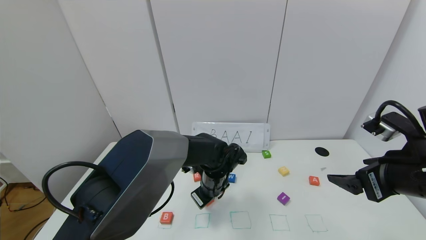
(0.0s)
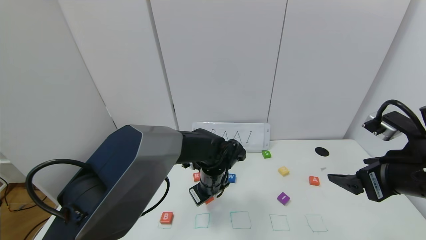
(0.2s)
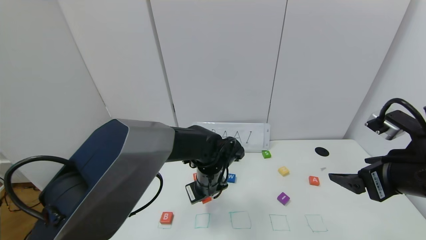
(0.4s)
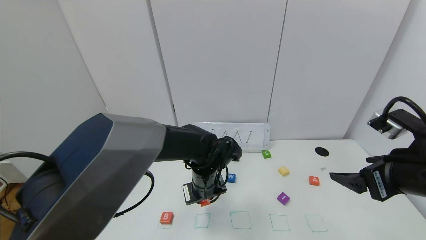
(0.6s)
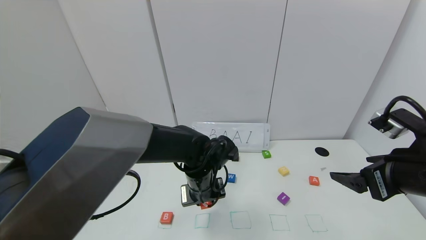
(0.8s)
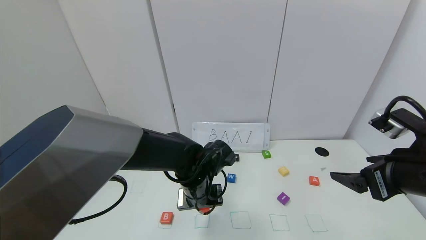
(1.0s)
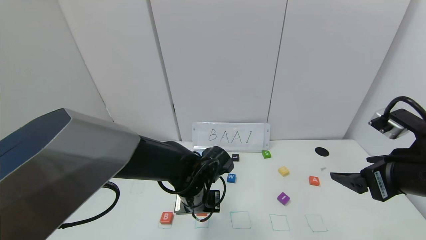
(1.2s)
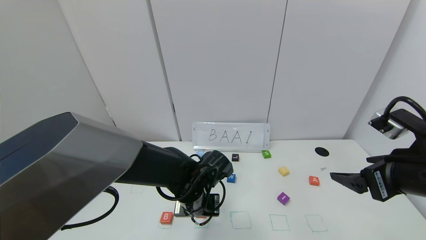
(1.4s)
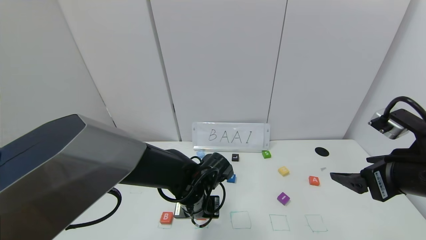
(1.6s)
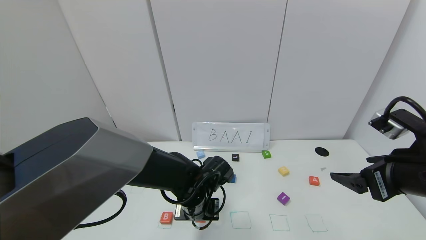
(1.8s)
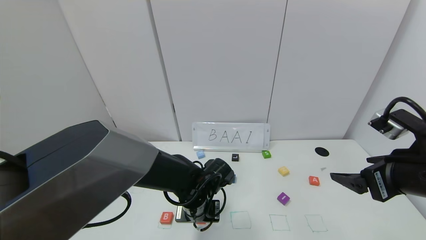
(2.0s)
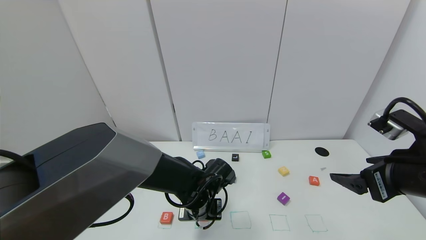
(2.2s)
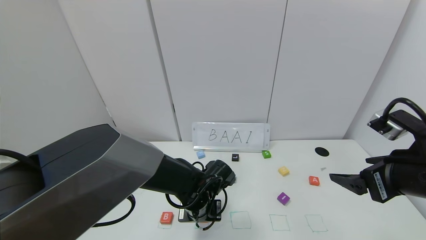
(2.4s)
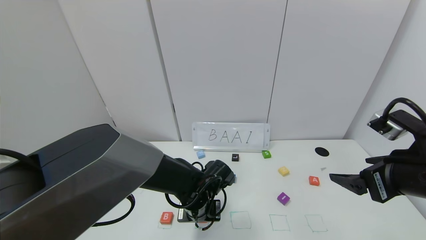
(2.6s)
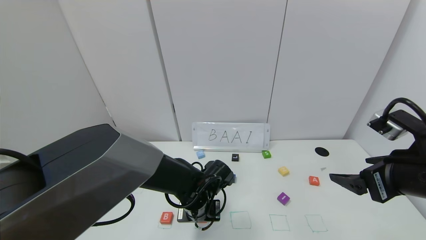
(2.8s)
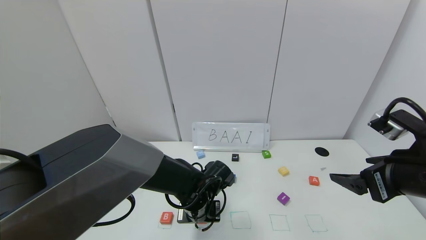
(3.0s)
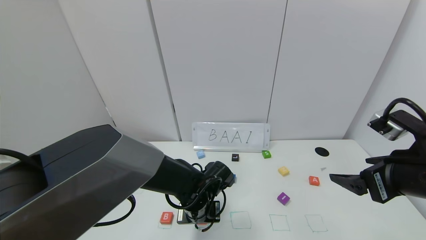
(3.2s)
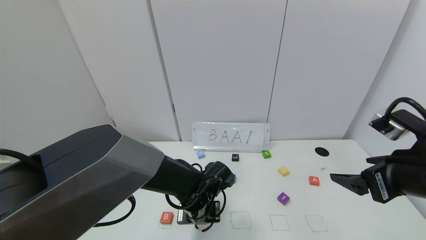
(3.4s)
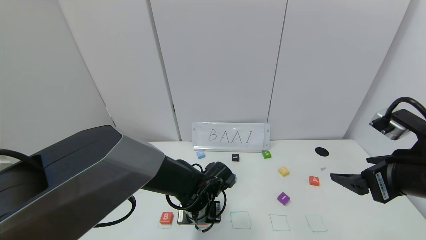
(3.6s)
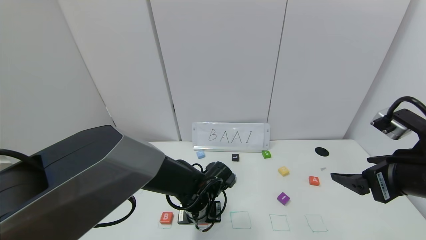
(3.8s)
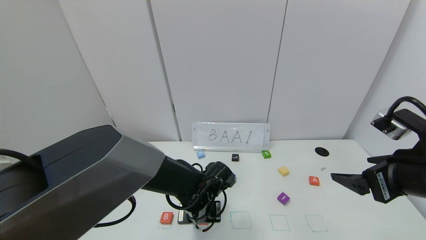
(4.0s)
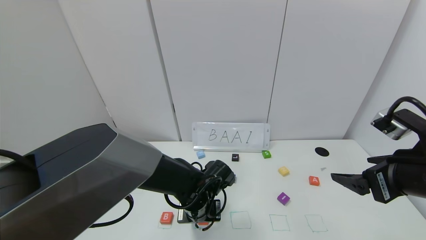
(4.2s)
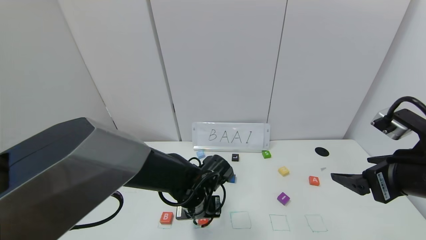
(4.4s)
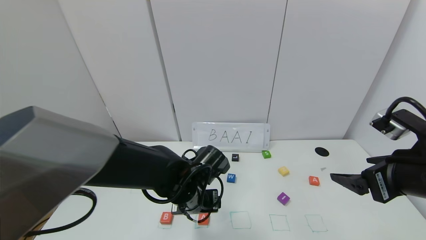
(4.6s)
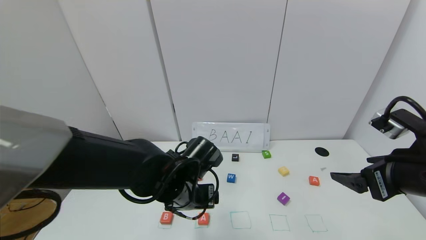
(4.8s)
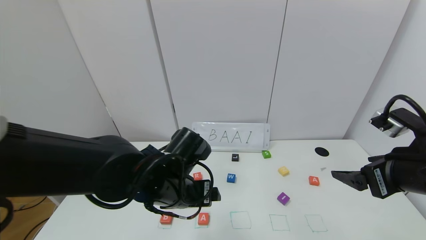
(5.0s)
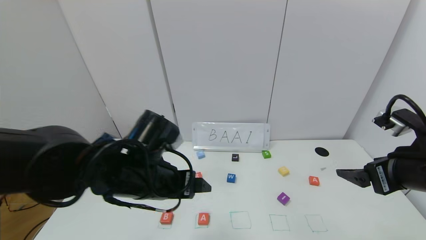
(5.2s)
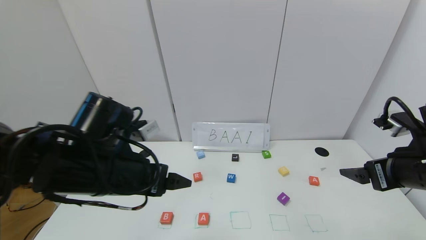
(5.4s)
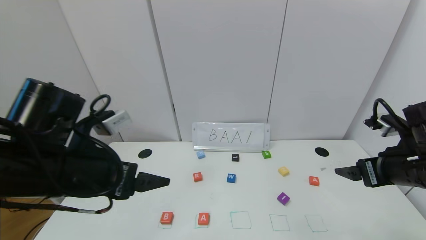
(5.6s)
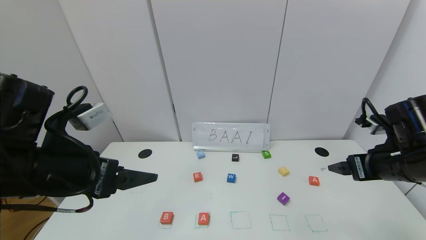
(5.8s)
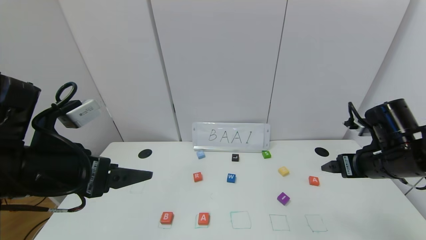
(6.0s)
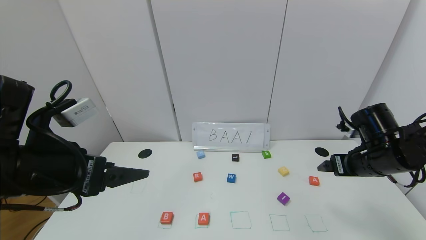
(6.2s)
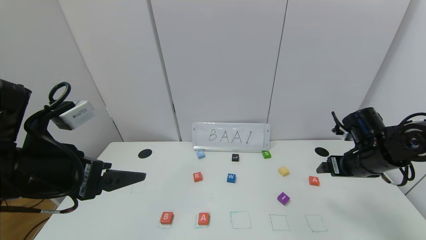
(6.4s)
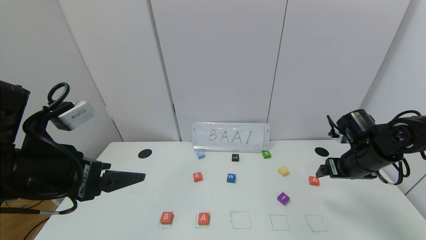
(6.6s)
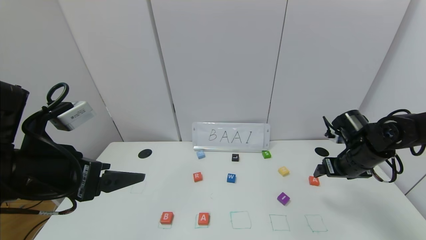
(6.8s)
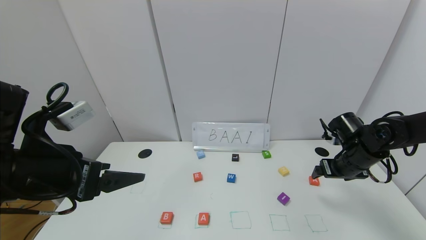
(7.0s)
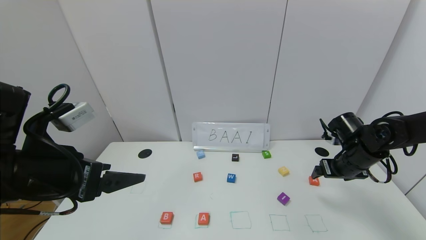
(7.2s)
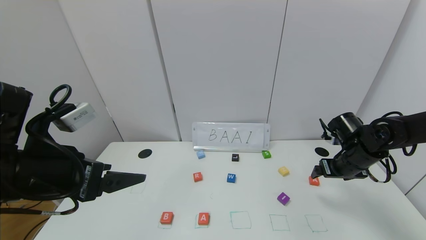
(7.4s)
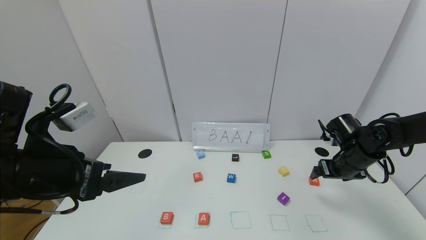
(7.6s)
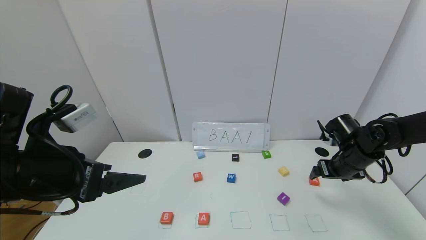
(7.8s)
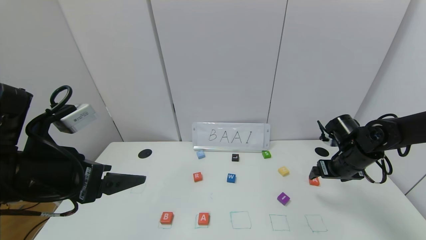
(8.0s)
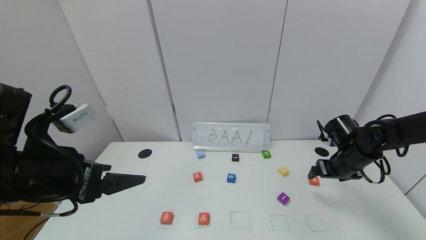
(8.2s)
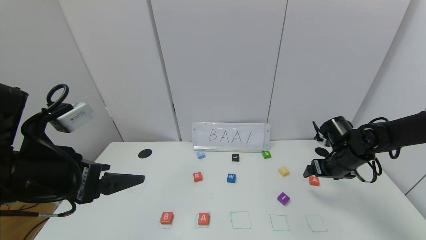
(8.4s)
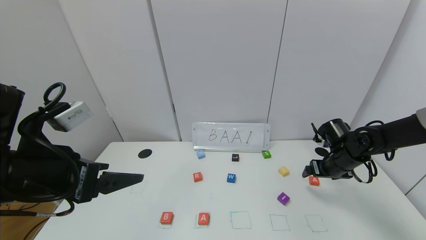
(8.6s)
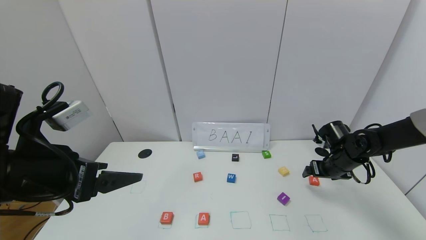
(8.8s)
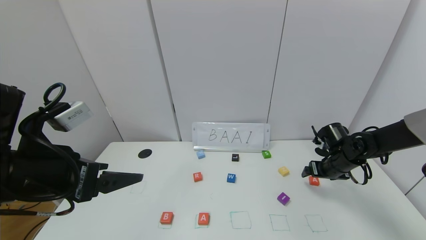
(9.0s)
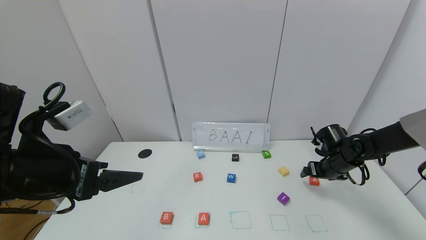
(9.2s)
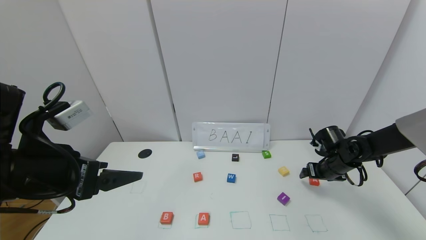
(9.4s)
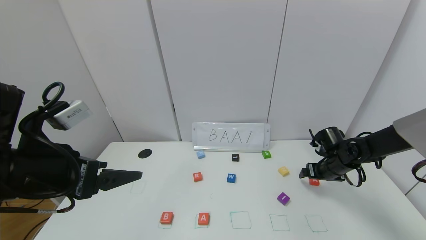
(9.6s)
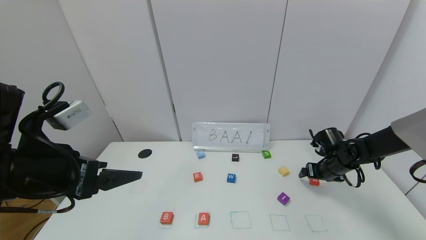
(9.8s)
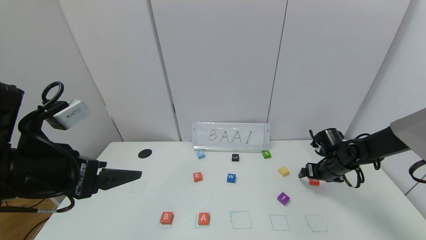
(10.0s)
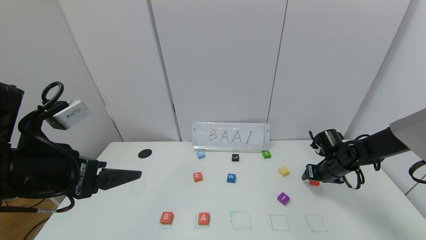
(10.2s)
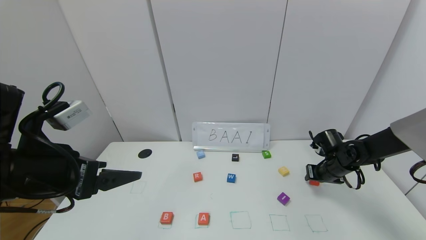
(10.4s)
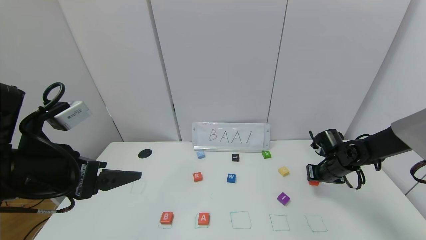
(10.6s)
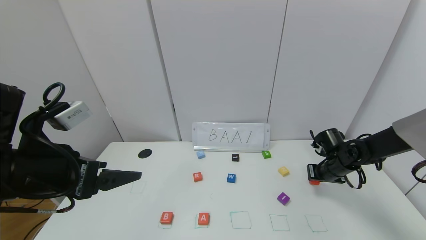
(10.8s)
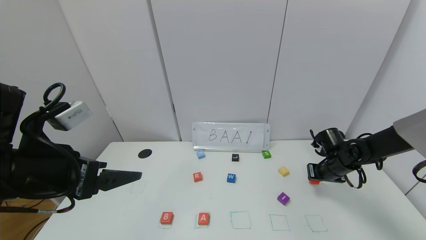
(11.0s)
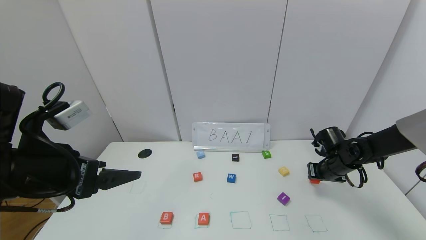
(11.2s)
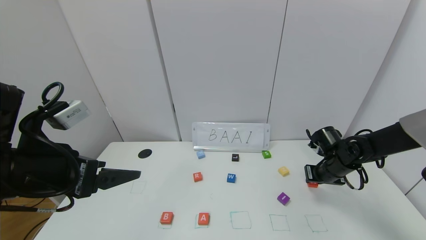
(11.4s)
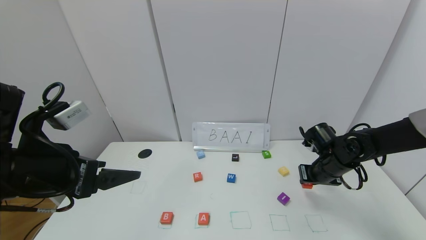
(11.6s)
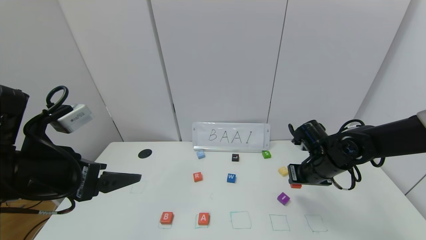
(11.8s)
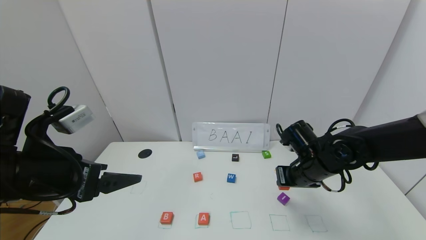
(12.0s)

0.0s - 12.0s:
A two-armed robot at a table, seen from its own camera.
Task of the whole recording: use the gripper to find blocks with the letters b, a, a, and i on the table and arrange them into BAAI, then find r and N and turn the arranged baai into brian.
Step, 0.0s - 4.2s: Place the first block A in the second location.
0.0s - 1.6s: The left gripper shifts approximately 5 cm backward.
1.6s - 3.0s: The grippers stay close to where they were, moving slightly.
3.0s - 4.4s: The left gripper opens.
4.4s - 6.0s: The right gripper moves forward, some 10 cm. The left gripper is displaced upward, to the left and backward by approximately 25 cm.
6.0s - 7.6s: The right gripper travels forward and downward by roughly 10 cm.
7.6s - 9.0s: The right gripper shifts by some 5 cm.
9.0s - 10.4s: The right gripper closes.
10.4s - 12.0s: The right gripper heads to the left, upward and backward, covering approximately 15 cm.

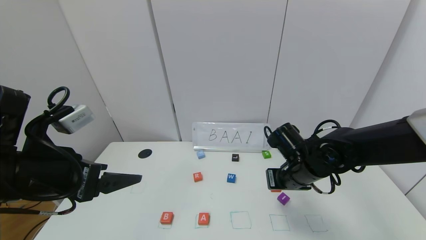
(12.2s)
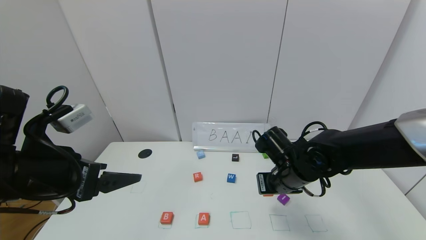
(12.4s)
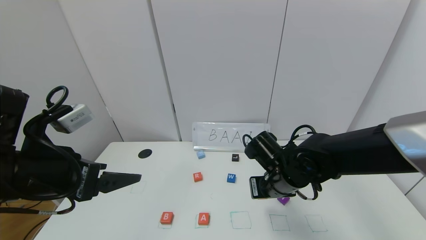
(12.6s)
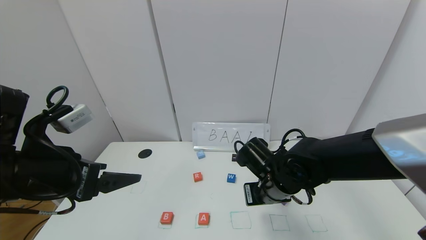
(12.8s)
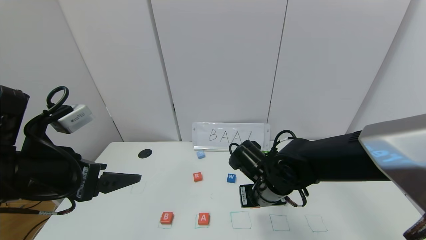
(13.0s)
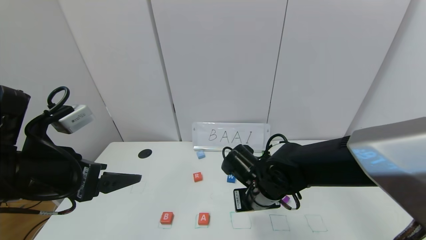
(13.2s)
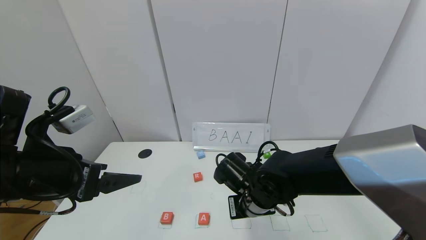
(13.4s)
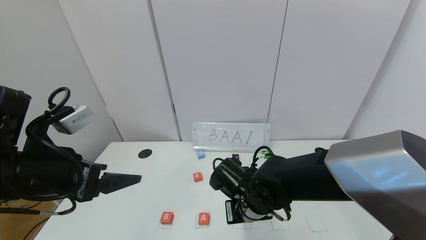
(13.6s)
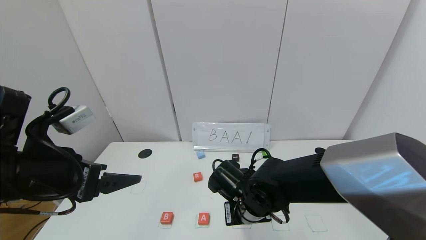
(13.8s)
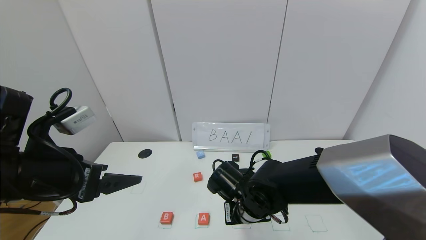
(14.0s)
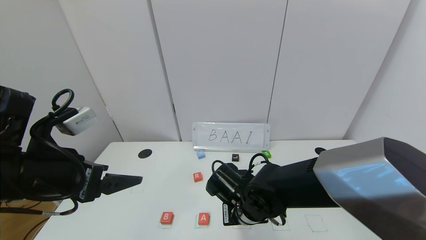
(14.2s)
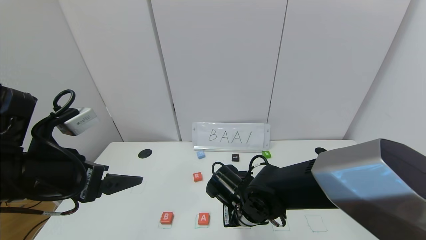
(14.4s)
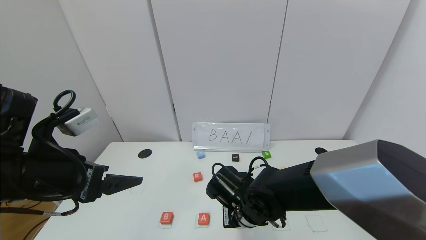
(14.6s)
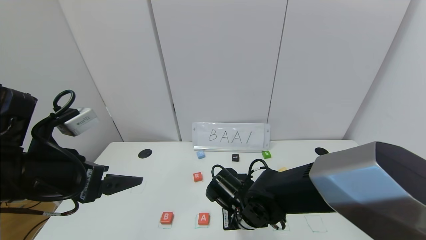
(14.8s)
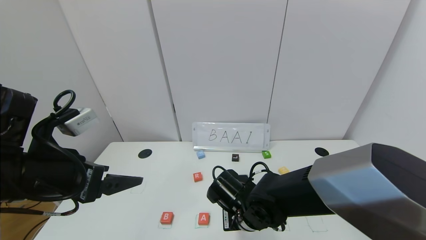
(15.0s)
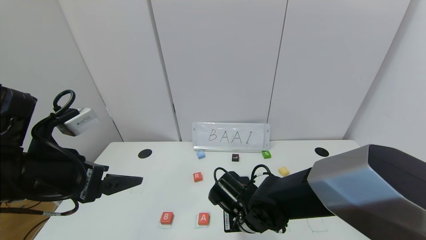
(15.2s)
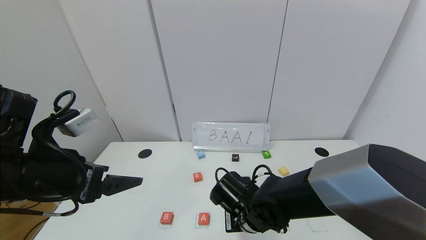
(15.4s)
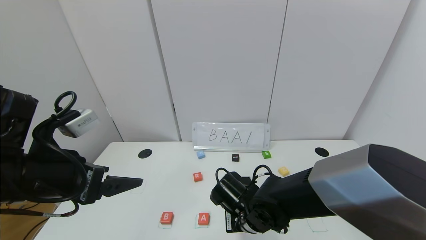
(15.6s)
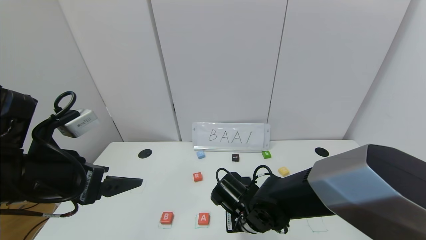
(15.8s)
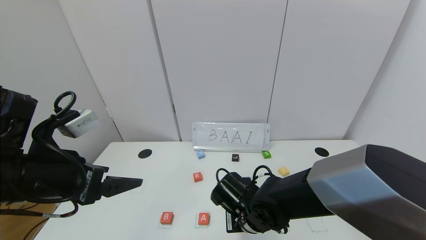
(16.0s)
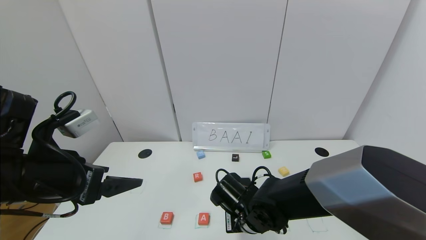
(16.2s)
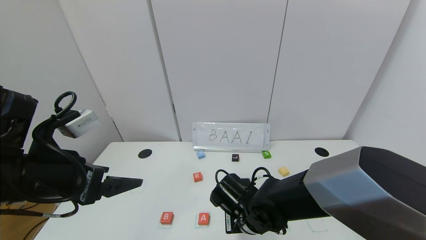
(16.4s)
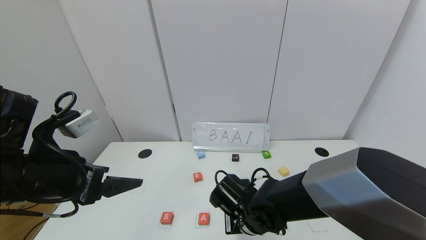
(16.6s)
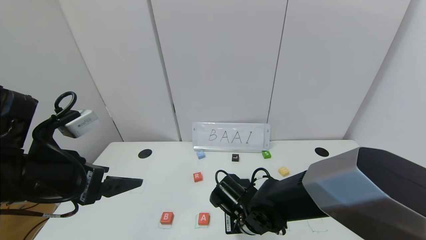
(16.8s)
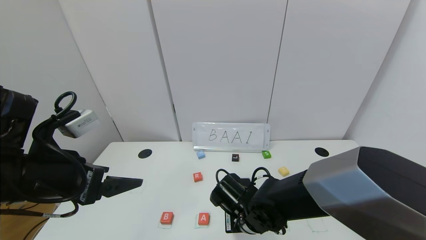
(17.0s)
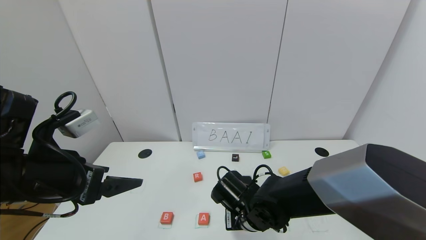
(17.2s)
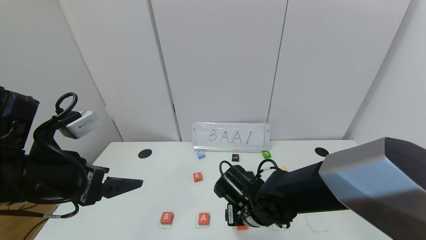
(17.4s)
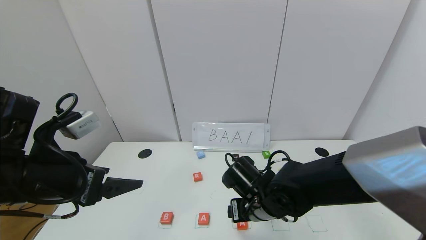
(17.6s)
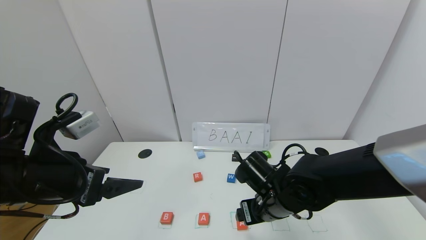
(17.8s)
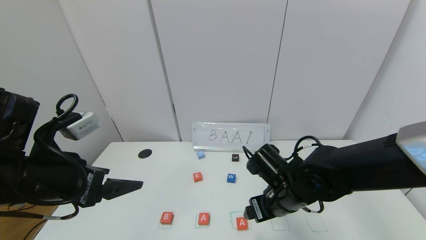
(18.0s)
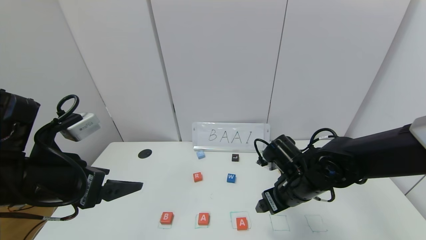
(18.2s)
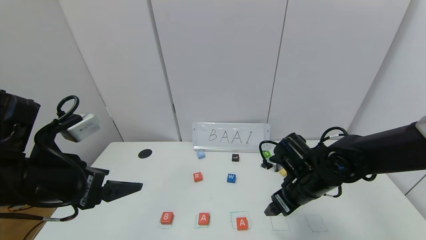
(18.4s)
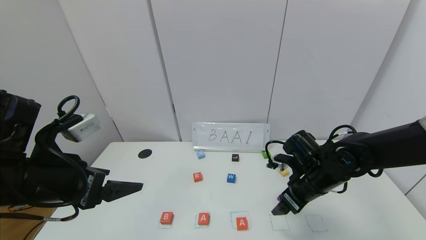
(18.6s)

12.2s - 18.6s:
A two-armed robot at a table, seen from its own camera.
Task of the whole recording: use the gripper to find blocks with the letters b, a, a, and i on the table and arrange them into BAAI, then find r and N and turn the arranged baai into brian.
Step, 12.2s - 17.2s: Place the second block A in the third location.
12.2s - 13.8s: The right gripper heads to the left, covering approximately 10 cm.
13.8s - 15.4s: The grippers make only small movements.
15.4s - 17.0s: The right gripper opens.
17.0s - 18.6s: The right gripper heads to the right and upward, covering approximately 15 cm, and opens.
